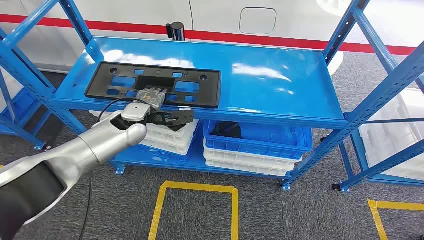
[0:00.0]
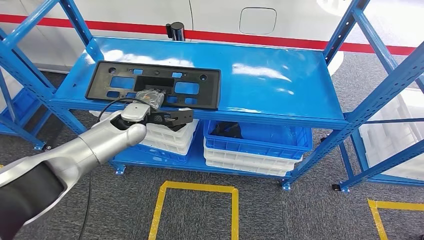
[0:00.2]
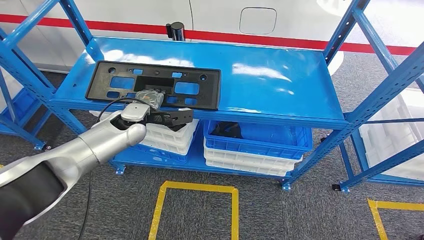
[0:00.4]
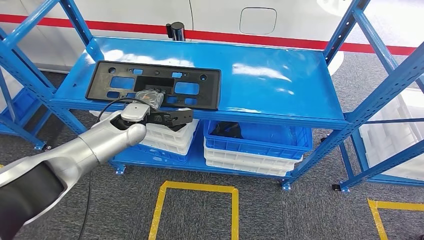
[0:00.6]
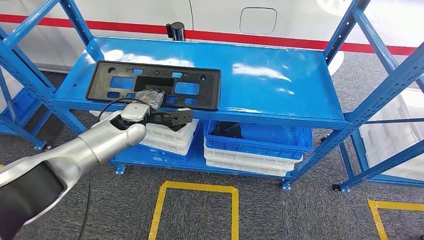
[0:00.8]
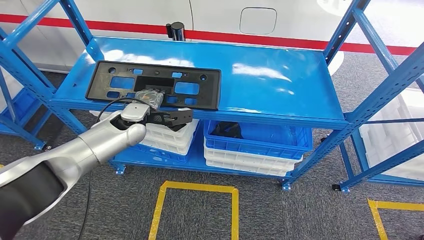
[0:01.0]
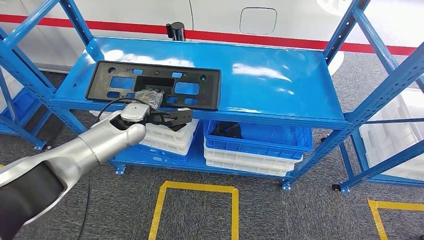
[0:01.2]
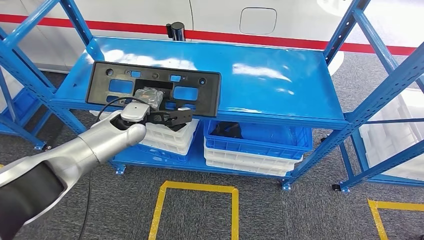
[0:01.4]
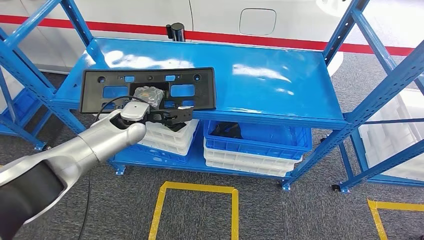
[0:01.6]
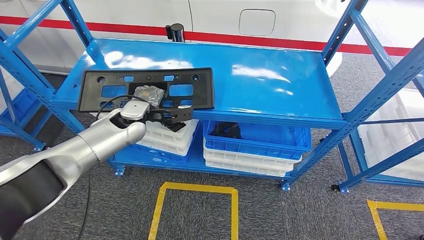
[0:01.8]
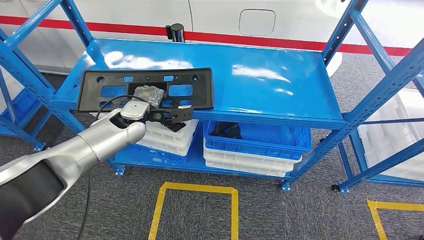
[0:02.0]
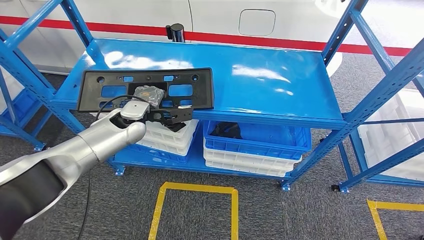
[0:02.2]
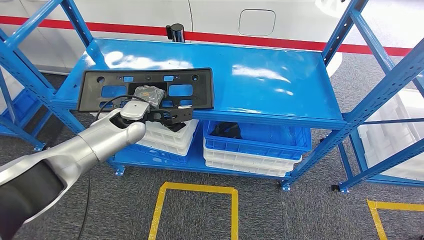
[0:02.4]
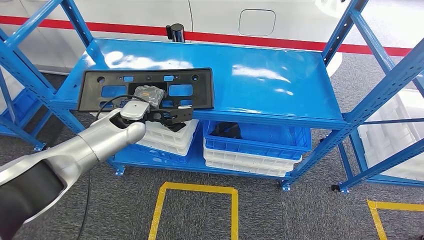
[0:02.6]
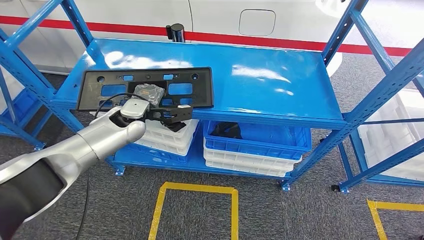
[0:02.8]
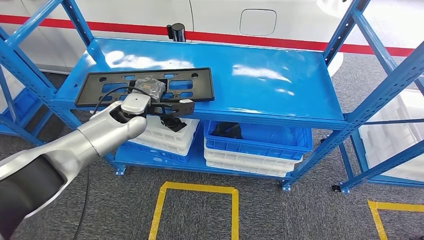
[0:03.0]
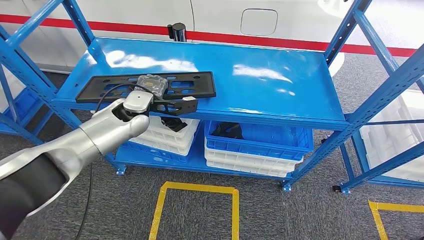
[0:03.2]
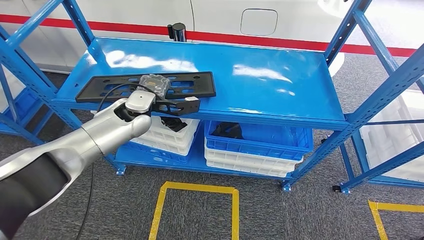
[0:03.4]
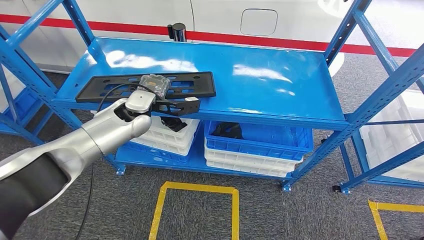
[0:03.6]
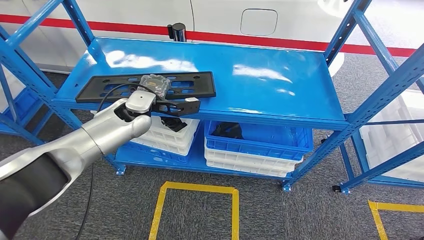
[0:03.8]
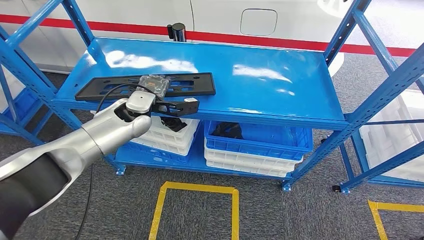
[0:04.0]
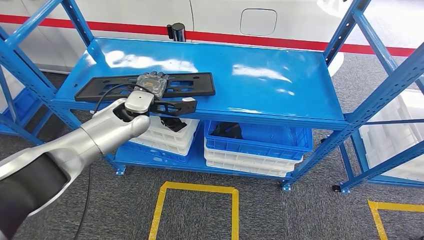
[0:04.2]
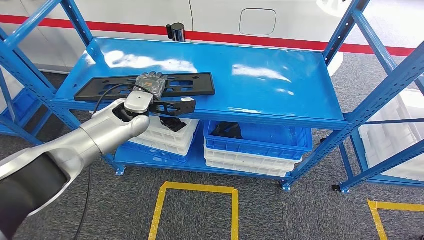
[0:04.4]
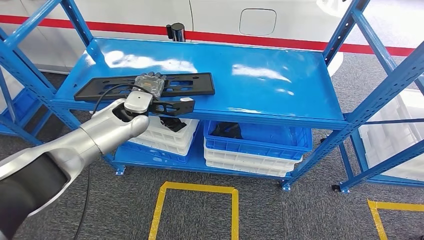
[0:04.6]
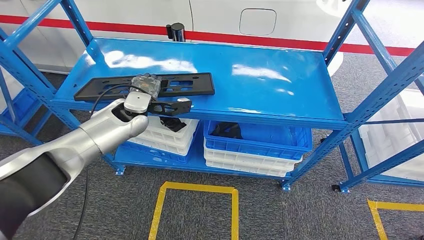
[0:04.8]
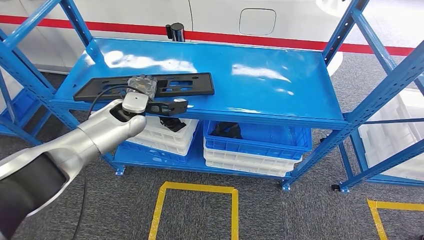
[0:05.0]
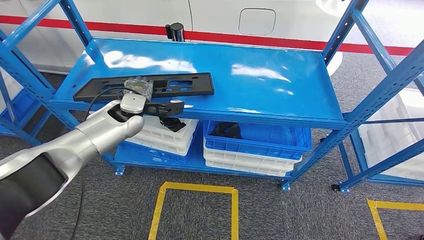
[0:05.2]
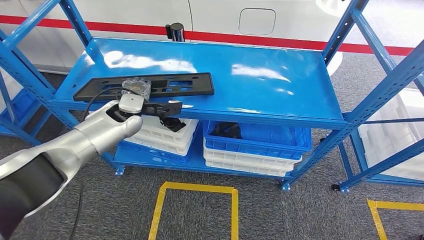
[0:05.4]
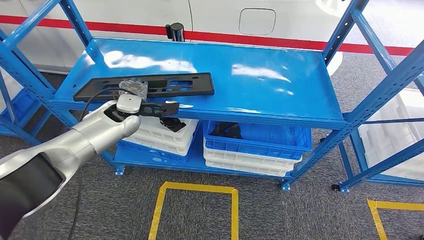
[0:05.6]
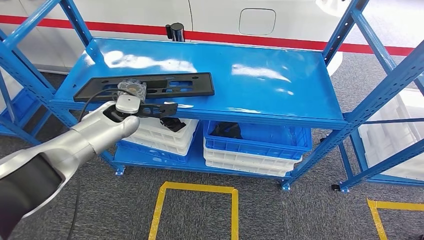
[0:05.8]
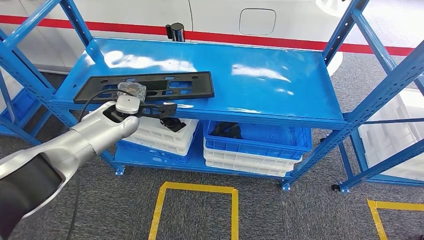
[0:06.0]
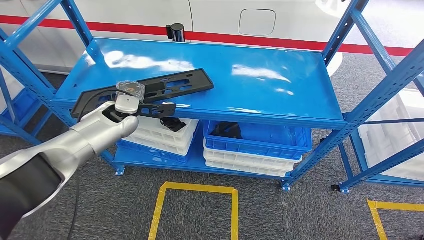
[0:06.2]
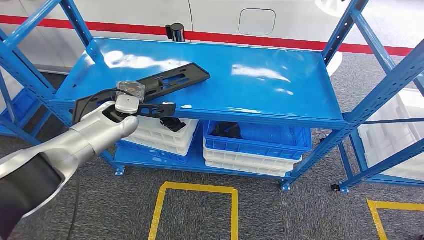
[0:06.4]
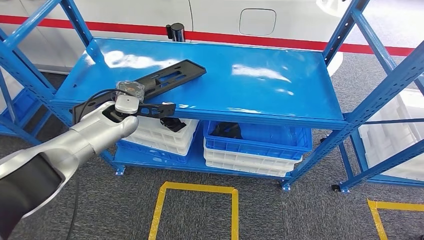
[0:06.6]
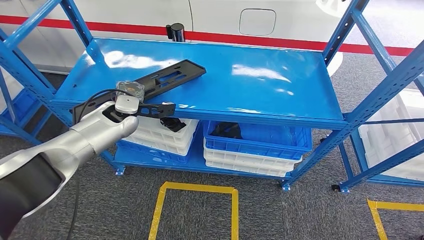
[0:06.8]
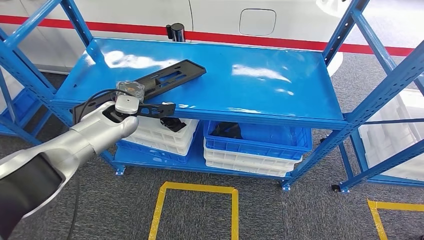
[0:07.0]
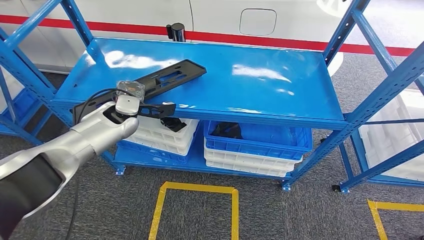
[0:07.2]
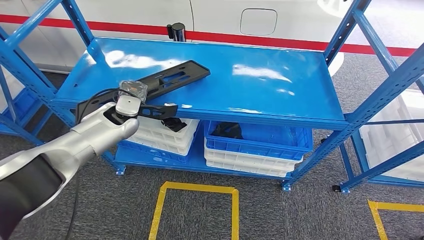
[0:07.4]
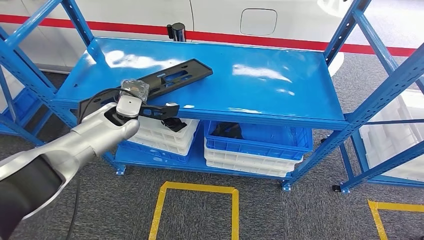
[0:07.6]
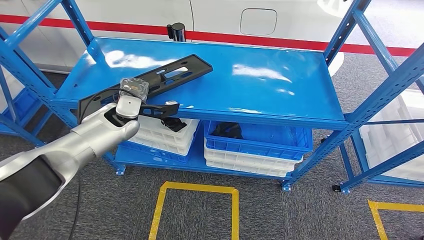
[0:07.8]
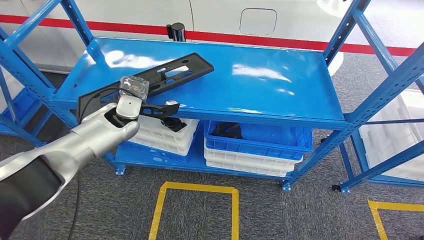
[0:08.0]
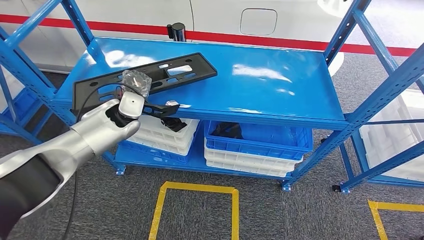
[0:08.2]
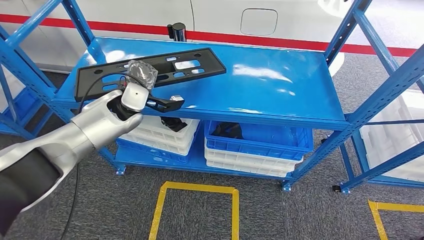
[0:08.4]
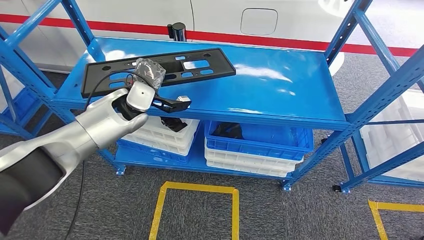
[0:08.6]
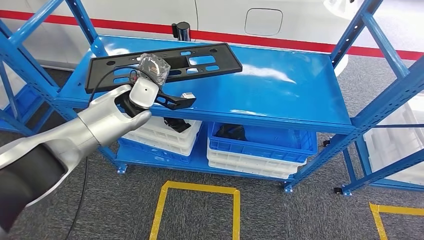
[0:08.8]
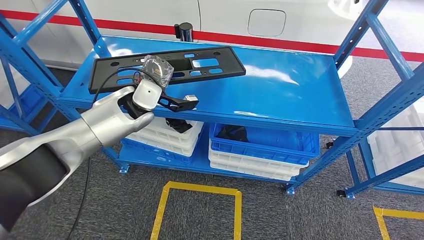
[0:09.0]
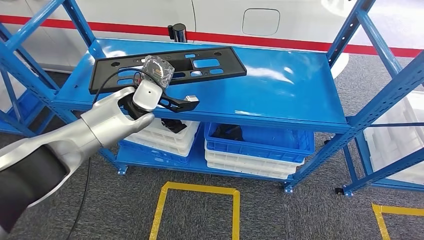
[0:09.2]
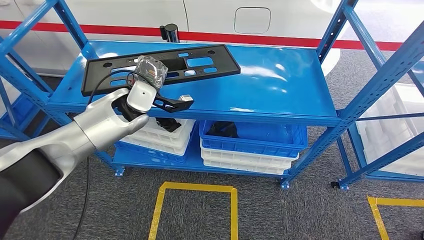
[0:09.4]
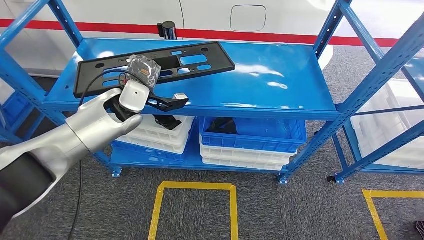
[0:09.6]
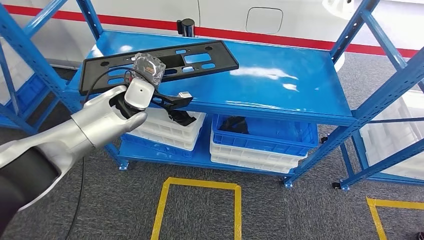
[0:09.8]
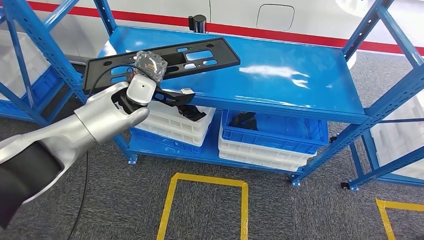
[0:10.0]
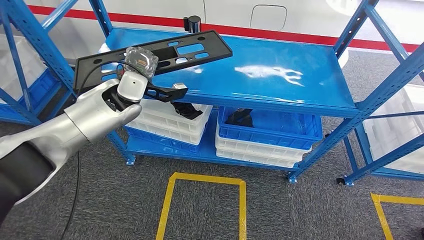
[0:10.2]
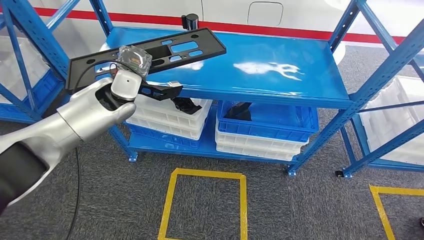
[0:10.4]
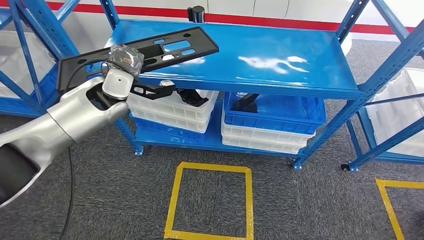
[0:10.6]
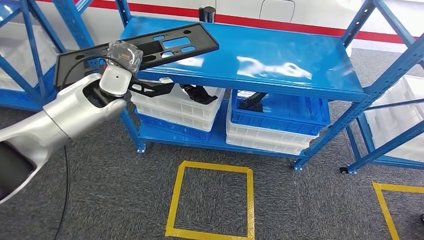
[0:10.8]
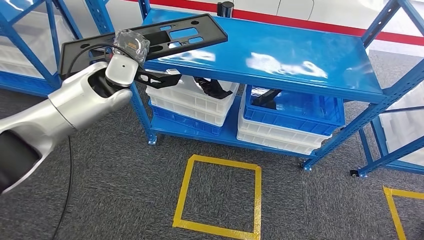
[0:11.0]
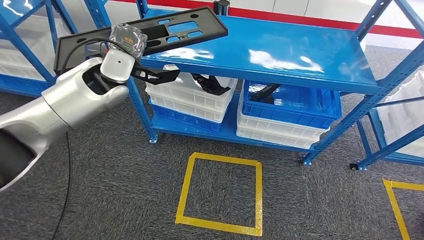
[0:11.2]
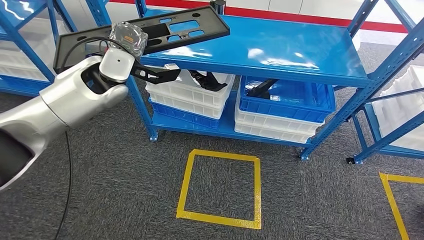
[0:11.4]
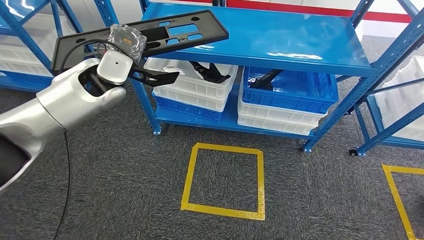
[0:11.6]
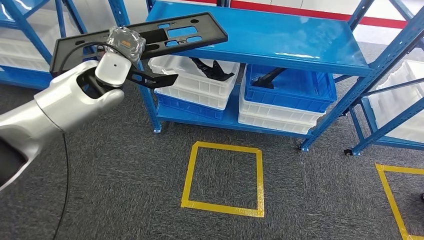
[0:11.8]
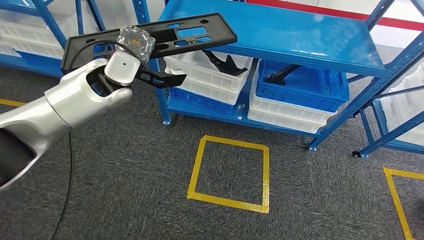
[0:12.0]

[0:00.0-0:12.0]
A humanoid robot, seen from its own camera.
Step, 0:00.0 to 0:11.2: Pick up the large material from the shelf.
0:01.6 to 0:07.6: The hands move only a little.

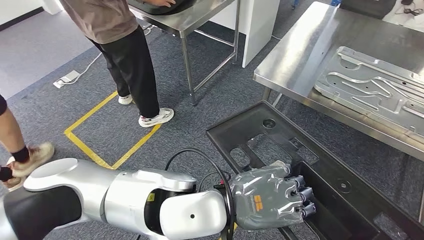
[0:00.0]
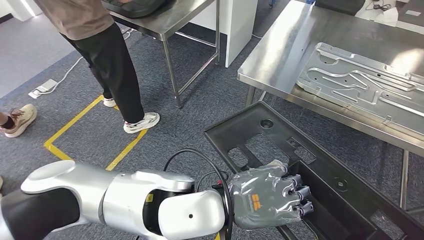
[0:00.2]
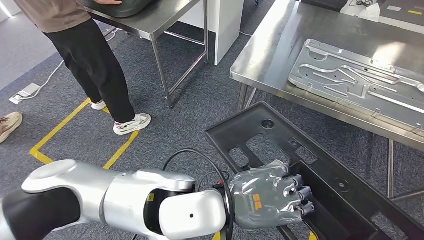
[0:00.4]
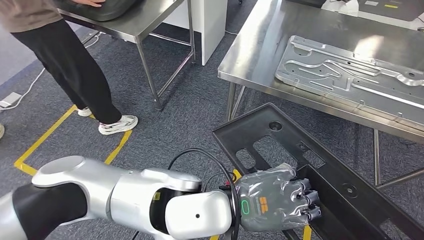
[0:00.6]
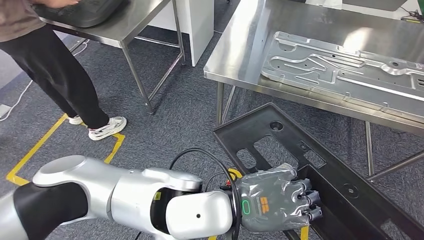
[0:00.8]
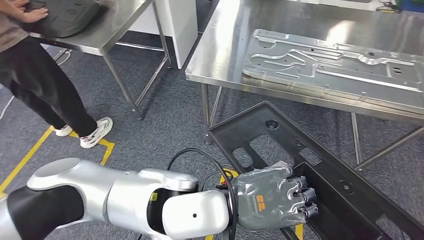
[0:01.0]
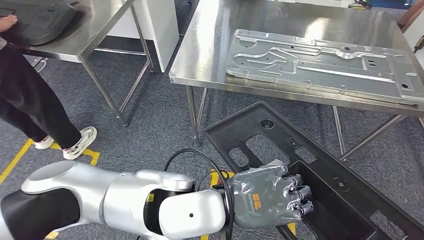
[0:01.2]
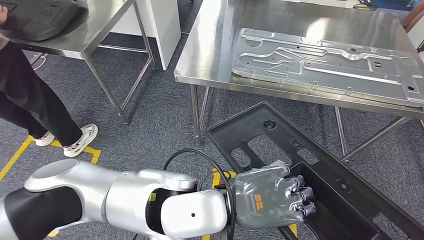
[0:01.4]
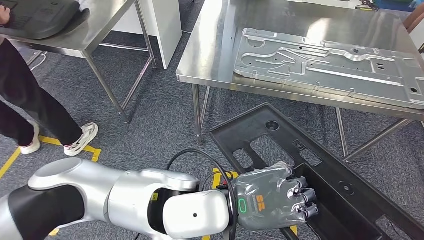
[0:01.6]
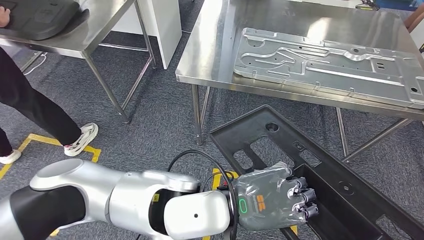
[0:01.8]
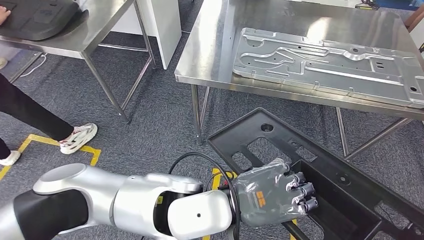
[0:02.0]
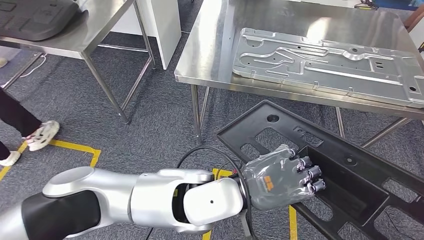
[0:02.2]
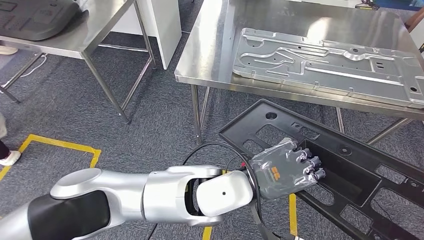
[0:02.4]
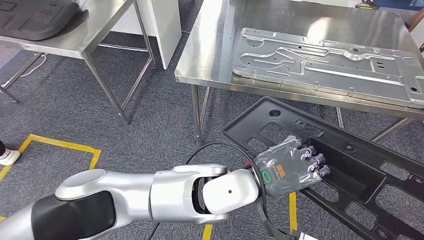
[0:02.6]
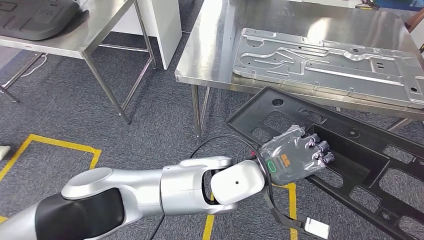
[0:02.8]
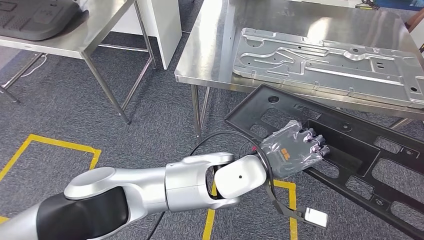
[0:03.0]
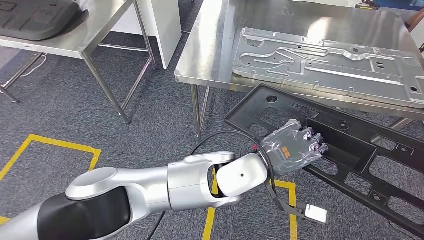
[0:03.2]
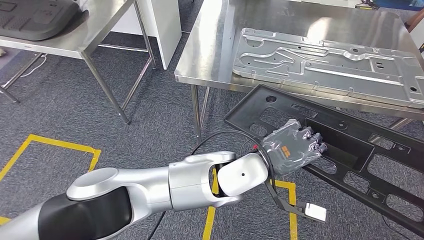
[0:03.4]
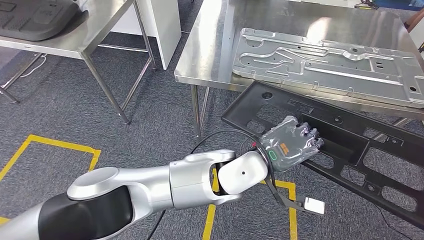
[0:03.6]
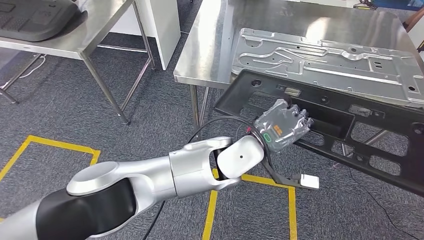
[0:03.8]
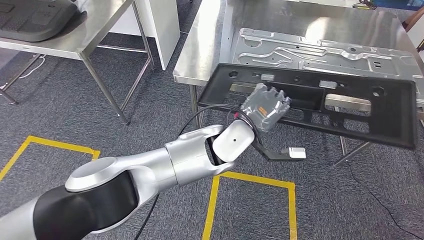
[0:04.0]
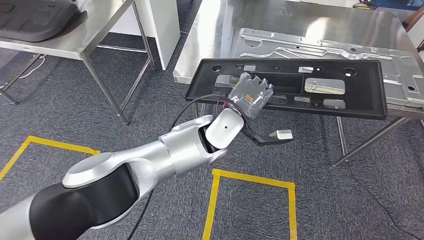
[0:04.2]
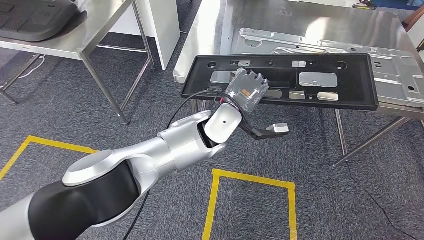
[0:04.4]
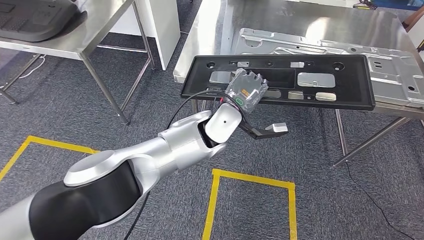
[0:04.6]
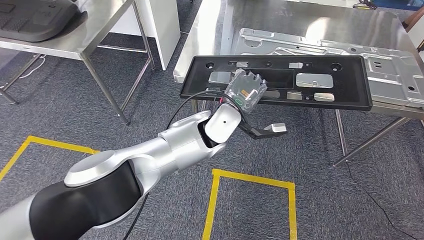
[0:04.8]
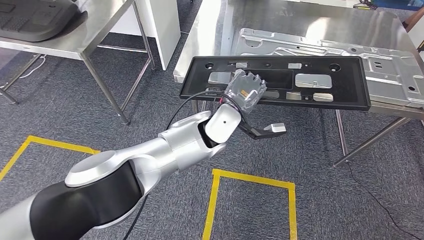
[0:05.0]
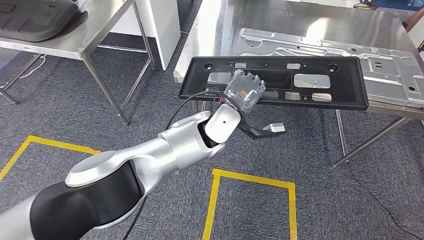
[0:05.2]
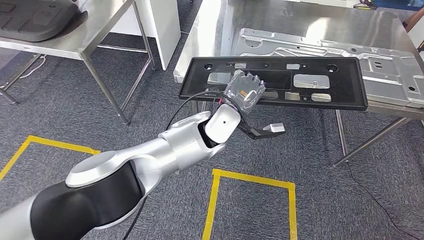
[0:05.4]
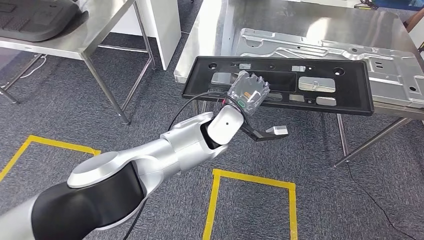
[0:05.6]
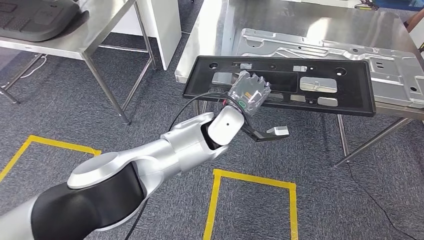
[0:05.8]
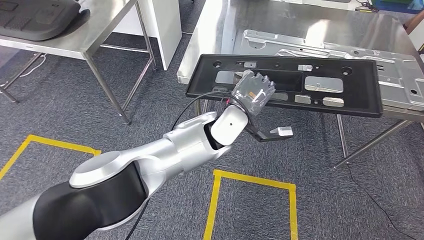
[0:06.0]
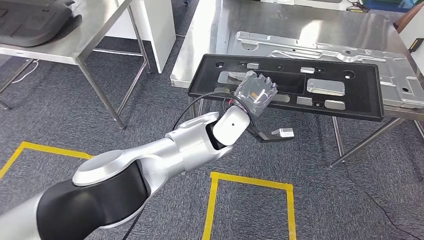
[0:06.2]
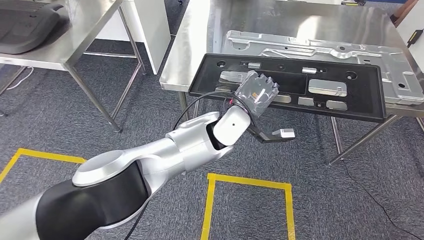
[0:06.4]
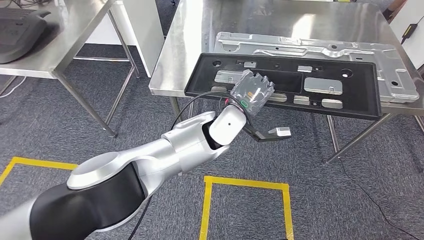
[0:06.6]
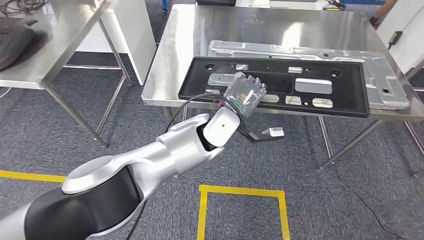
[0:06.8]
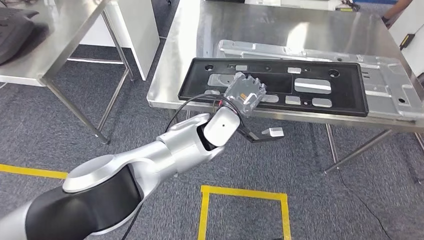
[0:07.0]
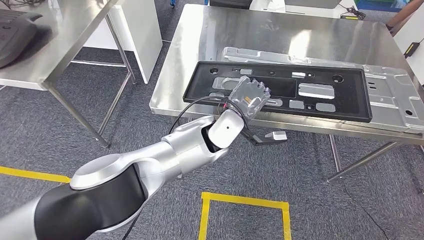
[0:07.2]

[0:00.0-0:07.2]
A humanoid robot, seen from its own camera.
0:04.4 to 0:05.8: Neither hand changes place.
